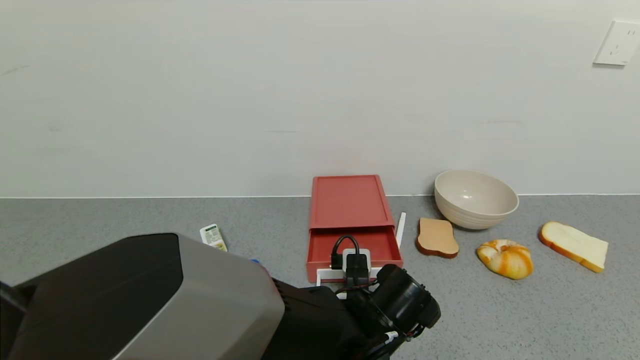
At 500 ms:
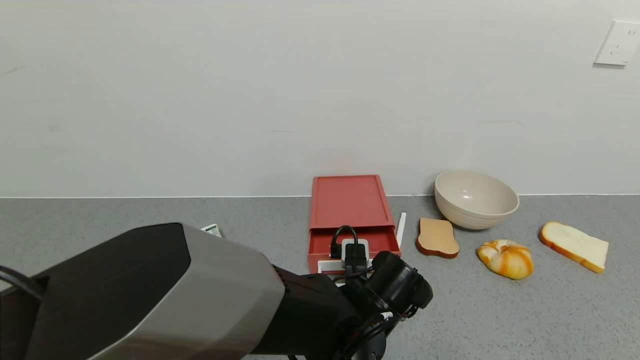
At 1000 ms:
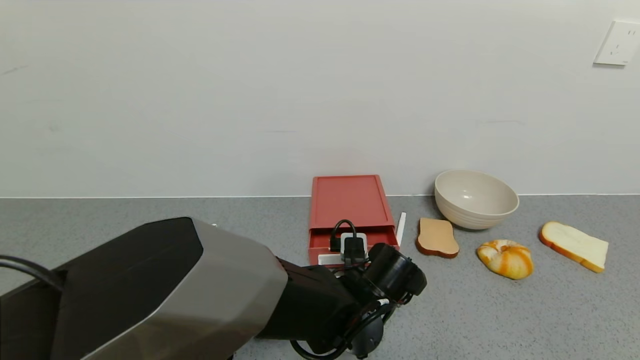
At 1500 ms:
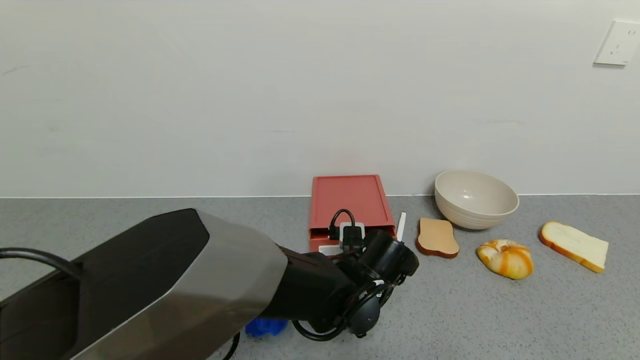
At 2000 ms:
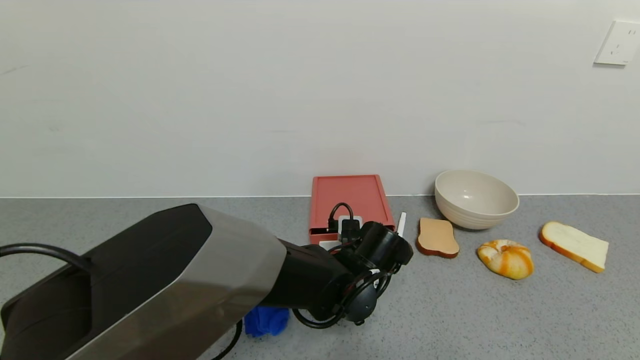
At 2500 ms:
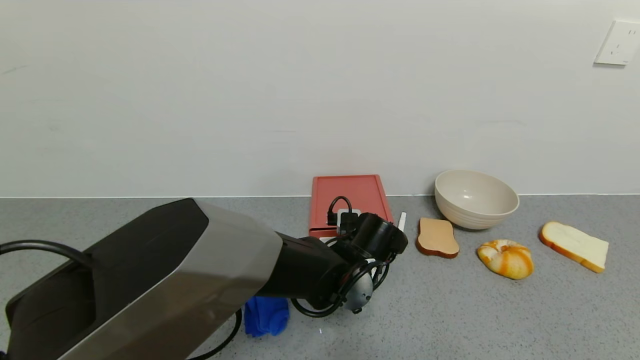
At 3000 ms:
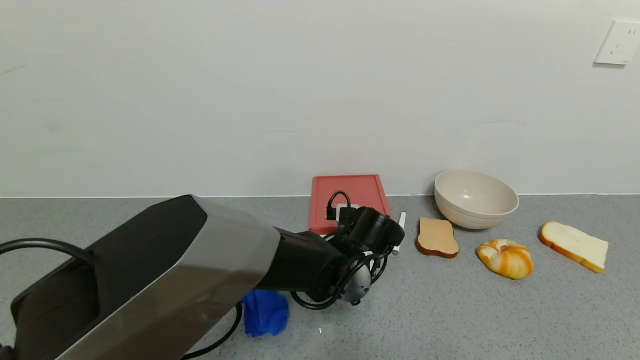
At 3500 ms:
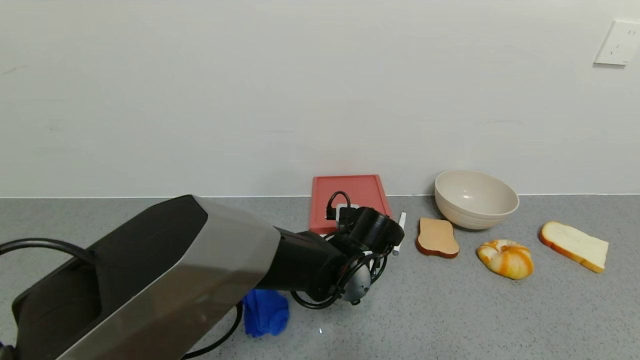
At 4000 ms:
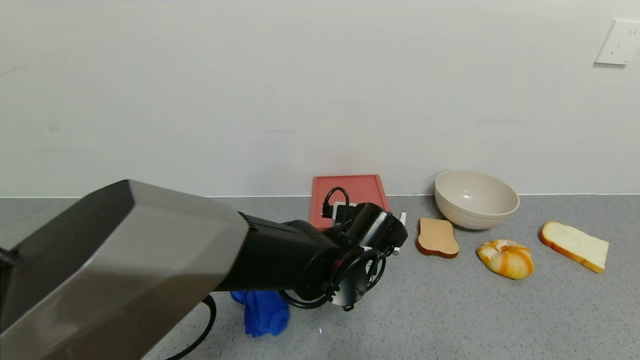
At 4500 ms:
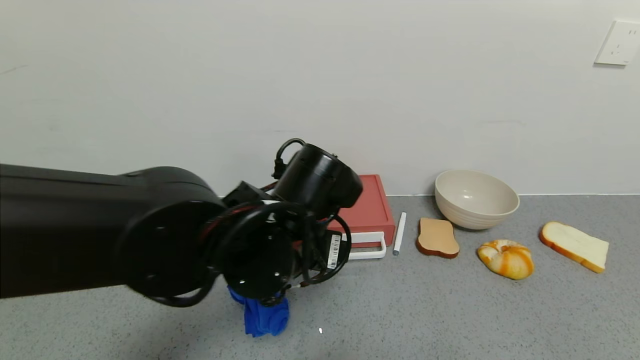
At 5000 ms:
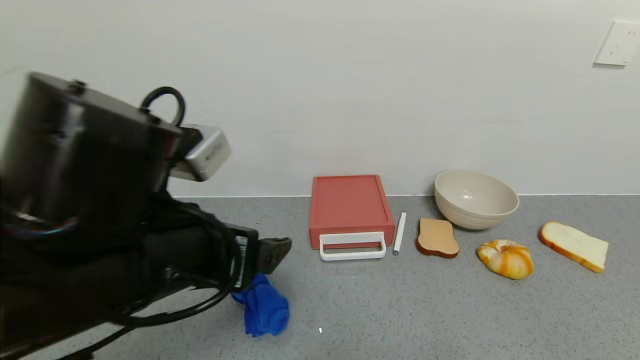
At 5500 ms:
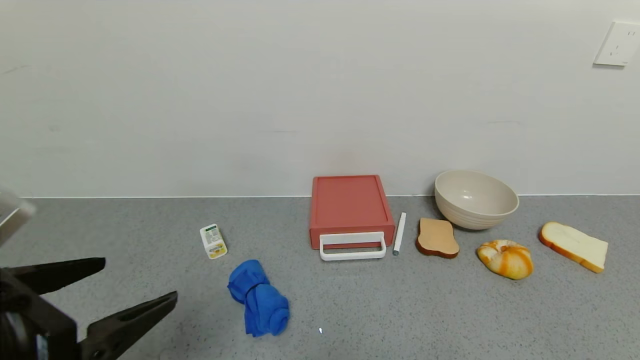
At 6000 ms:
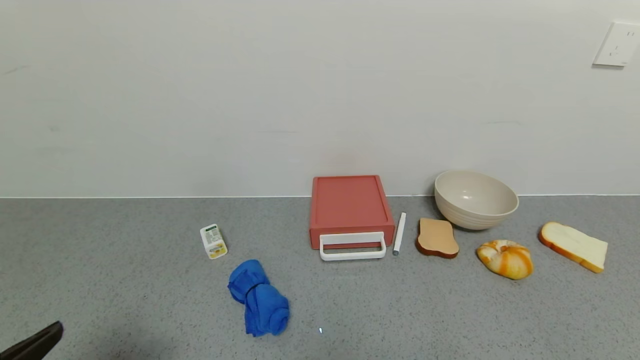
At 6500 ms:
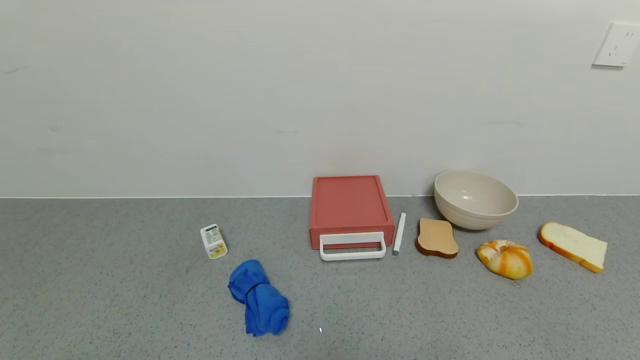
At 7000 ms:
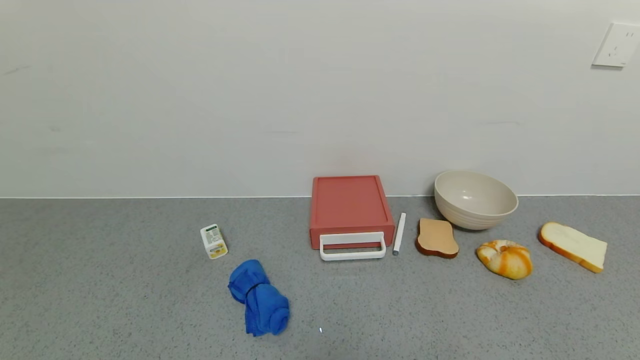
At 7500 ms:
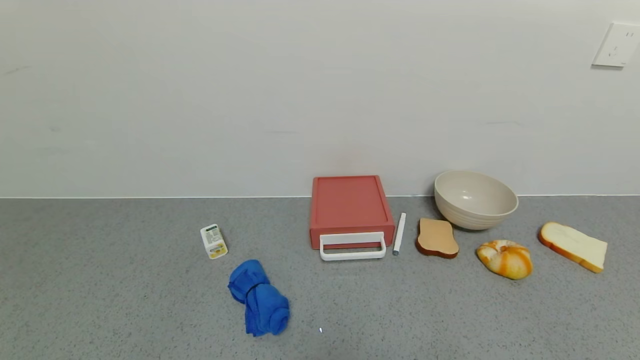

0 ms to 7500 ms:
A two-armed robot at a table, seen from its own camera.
Task of the whole recording: use the gripper to open the drawer and close the red drawer.
Step, 0 ms to 4000 ms: Close the red drawer with the left gripper.
0 ms to 2000 ms: The left gripper moves forward, some 5 cm.
2000 ms to 4000 ms: There are only small adjustments of the grippers.
4000 ms to 5500 ms: The left gripper is displaced to the left, backward and upward by some 35 cm.
5500 ms to 7500 ms: The left gripper shifts some 20 cm downward and backward.

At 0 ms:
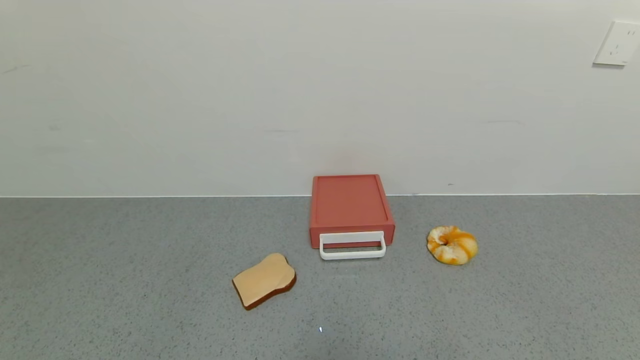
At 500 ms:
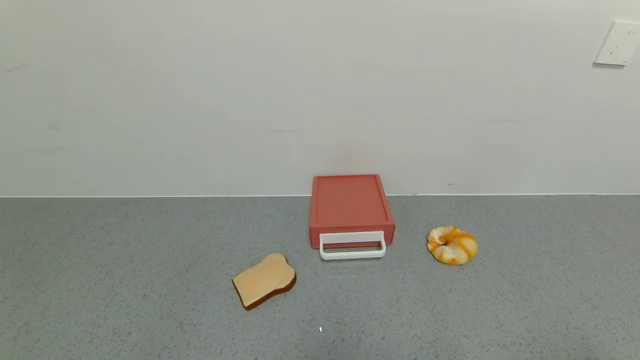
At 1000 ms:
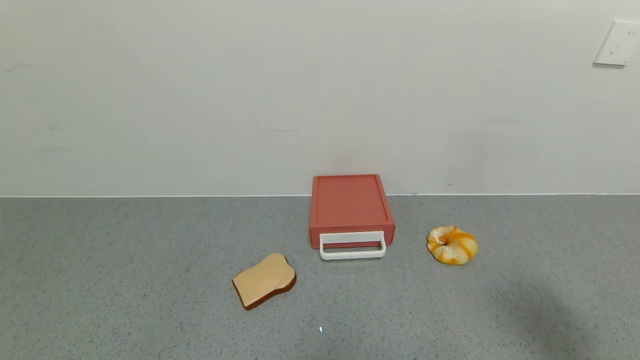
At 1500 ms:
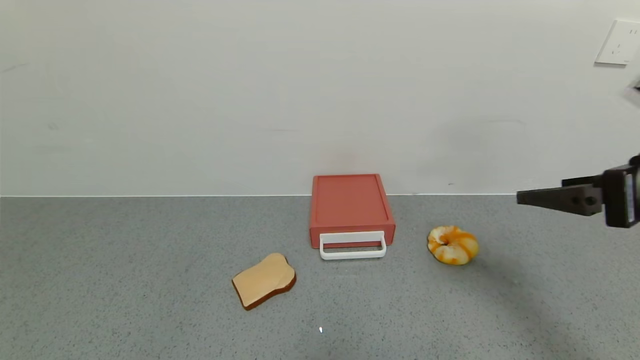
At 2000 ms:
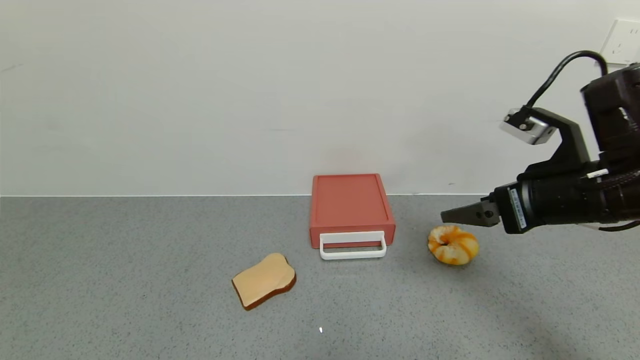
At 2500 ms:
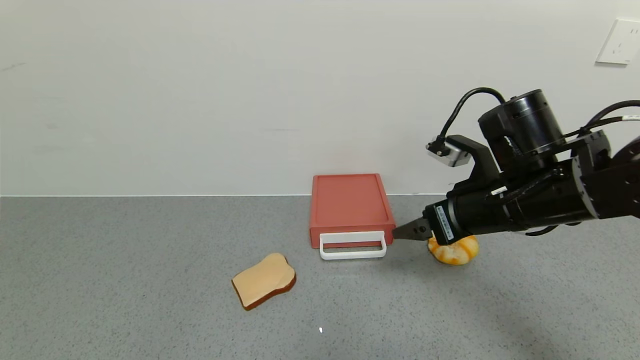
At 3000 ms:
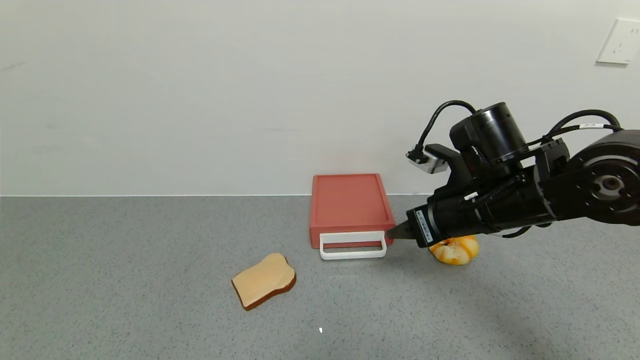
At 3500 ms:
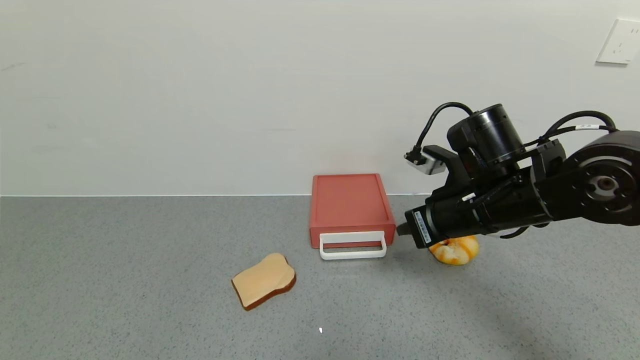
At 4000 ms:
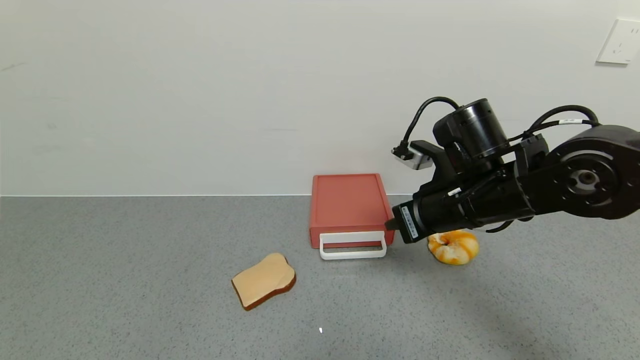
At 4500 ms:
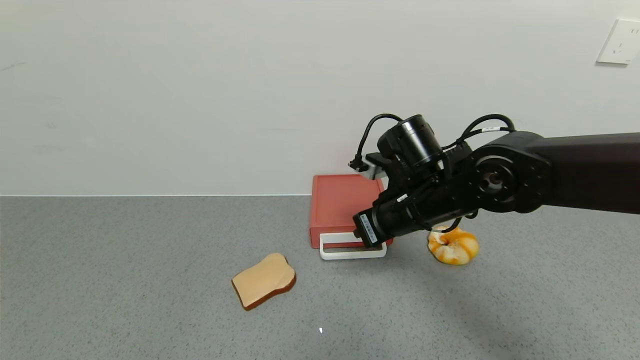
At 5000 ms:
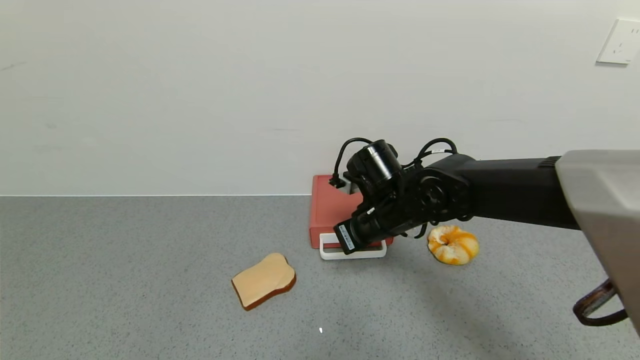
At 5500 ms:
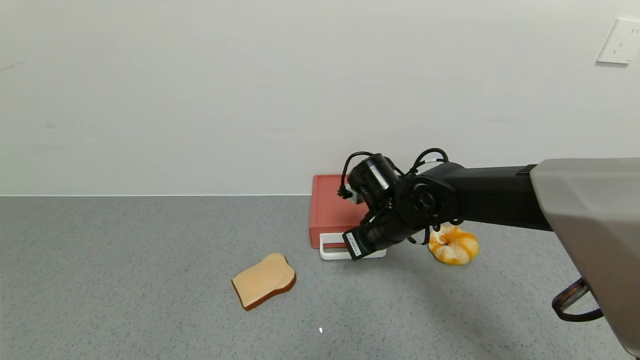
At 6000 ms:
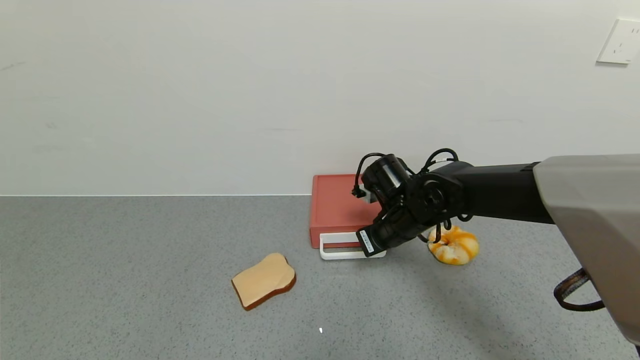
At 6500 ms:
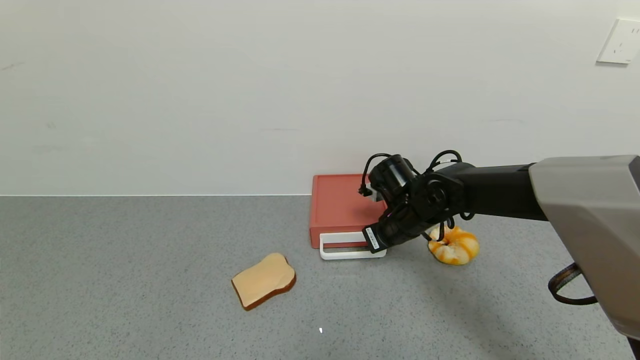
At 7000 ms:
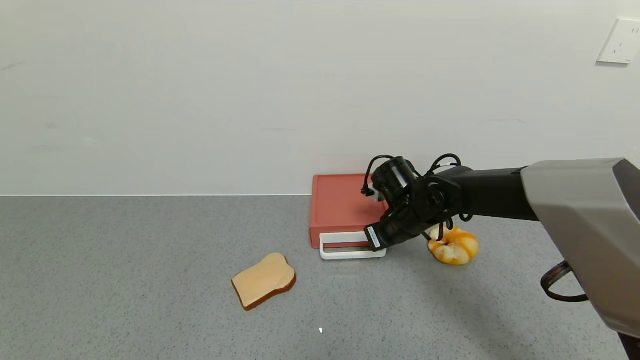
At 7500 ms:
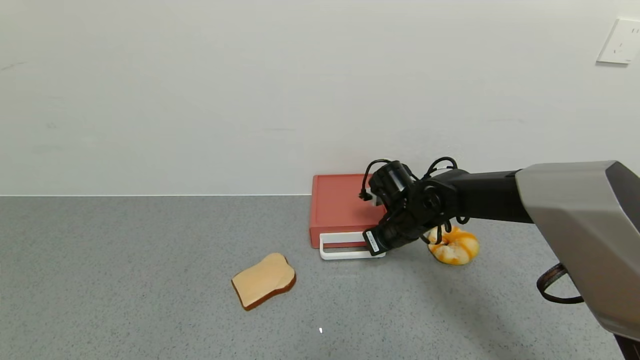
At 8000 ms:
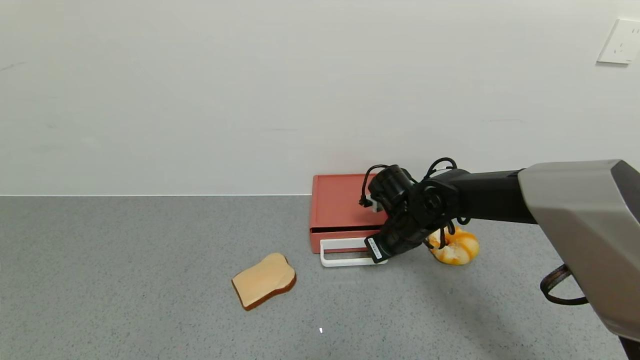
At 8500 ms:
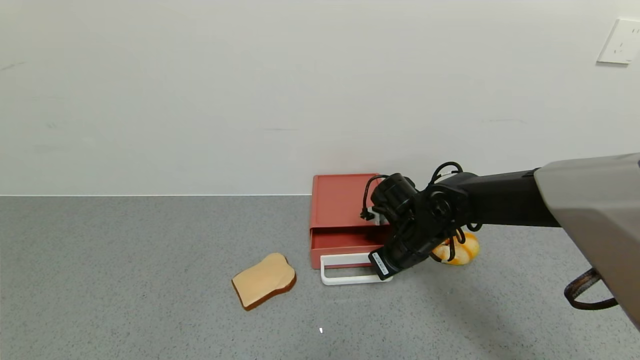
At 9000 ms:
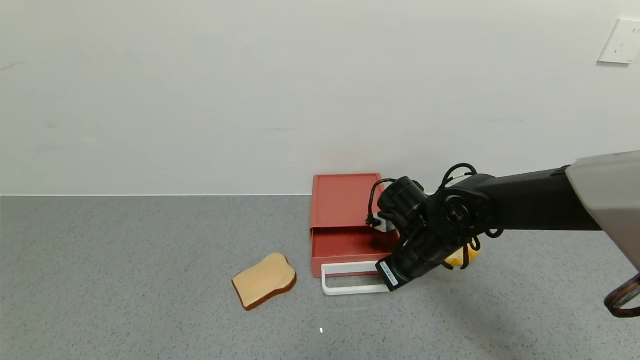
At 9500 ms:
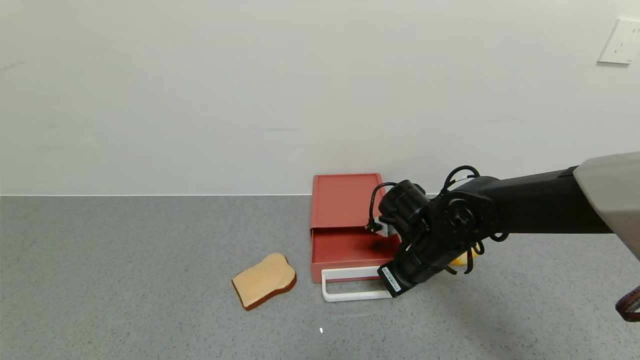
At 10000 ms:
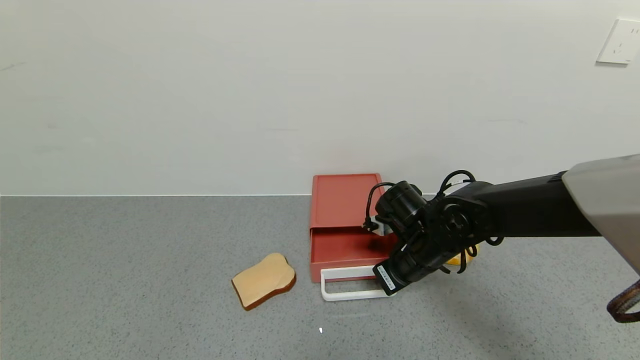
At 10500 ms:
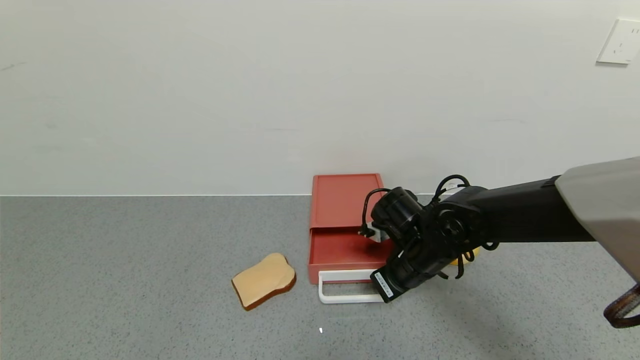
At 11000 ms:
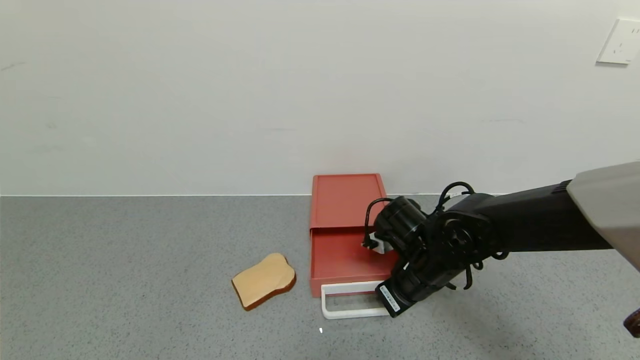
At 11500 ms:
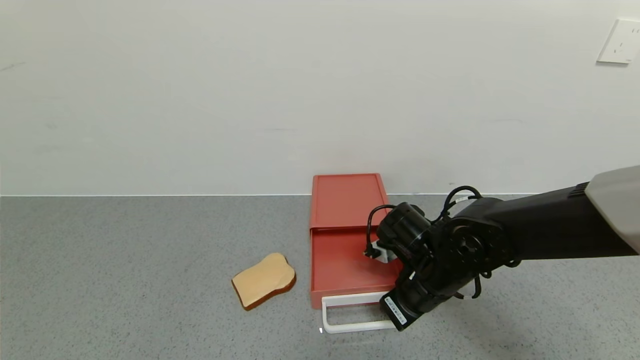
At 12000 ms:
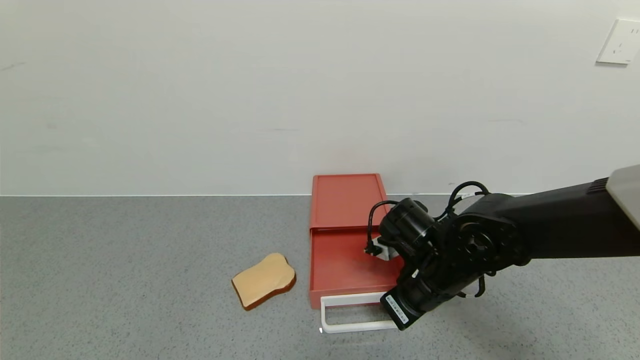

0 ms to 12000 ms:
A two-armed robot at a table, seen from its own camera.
Task of the whole recording: use the gripper to open the drawer and close the red drawer.
0 ms to 2000 ms: The right gripper shifts some 30 cm forward and upward.
2000 ms to 4000 ms: The right gripper shifts approximately 10 cm to the left, and closes its fingers.
4000 ms to 6000 ms: The right gripper heads downward and forward, covering approximately 10 cm.
6000 ms to 8000 ms: The grippers stay close to where they were, moving slightly.
8000 ms to 10000 ms: The right gripper heads backward, covering about 5 cm.
10000 ms to 12000 ms: There are only small adjustments of the grippers.
